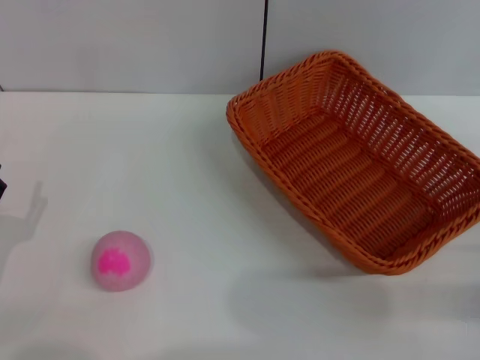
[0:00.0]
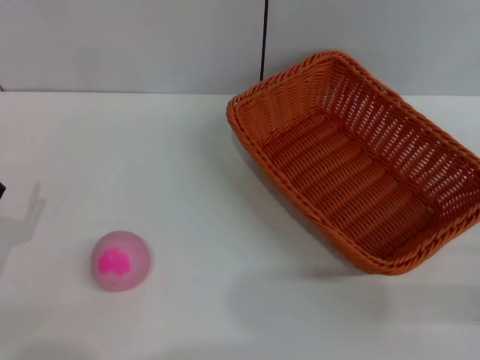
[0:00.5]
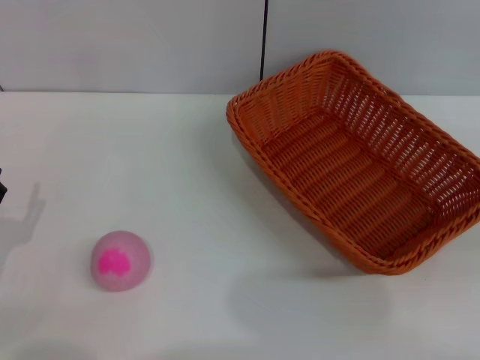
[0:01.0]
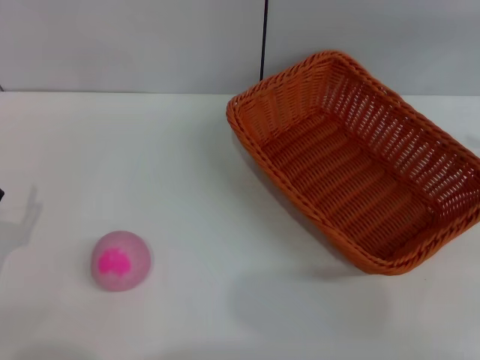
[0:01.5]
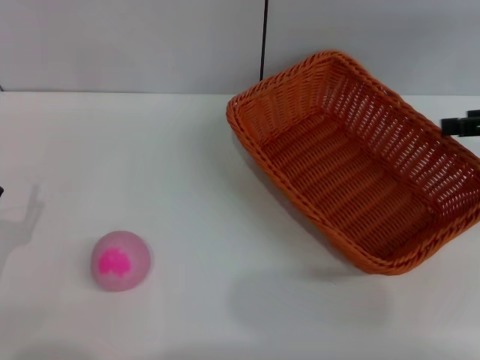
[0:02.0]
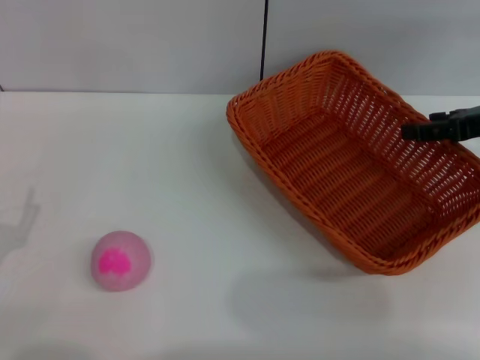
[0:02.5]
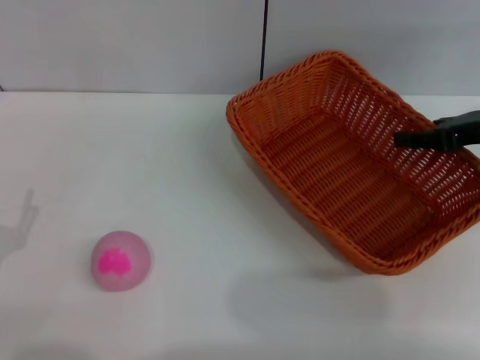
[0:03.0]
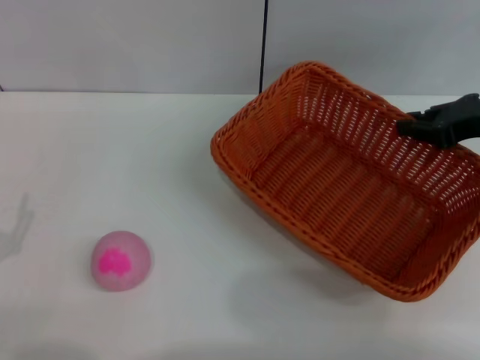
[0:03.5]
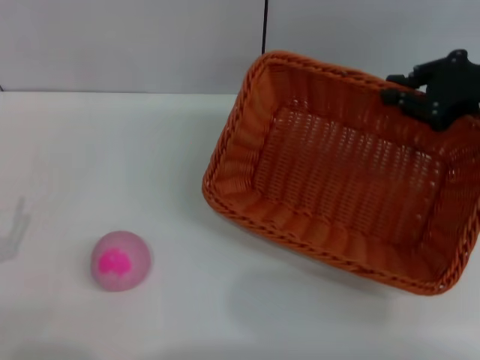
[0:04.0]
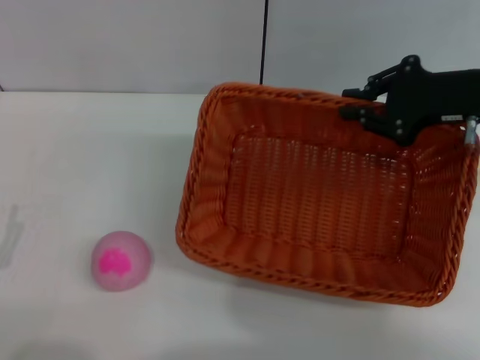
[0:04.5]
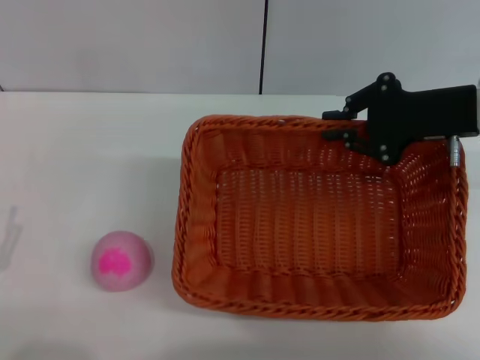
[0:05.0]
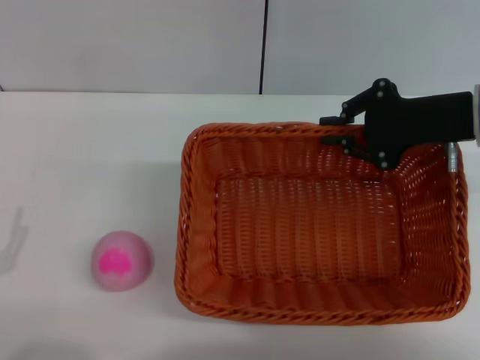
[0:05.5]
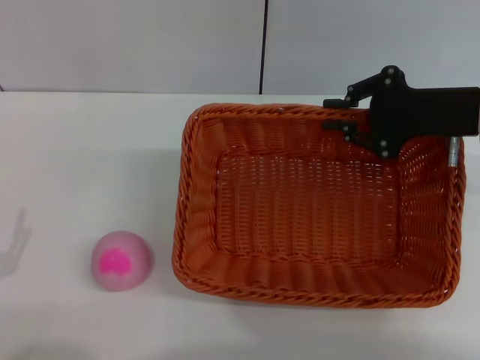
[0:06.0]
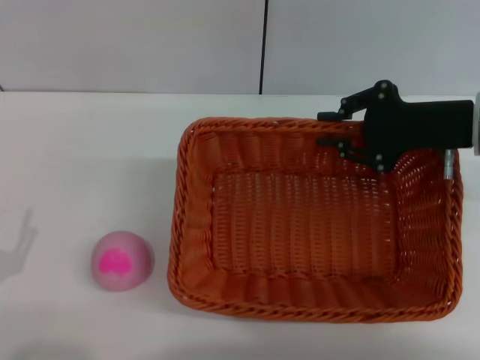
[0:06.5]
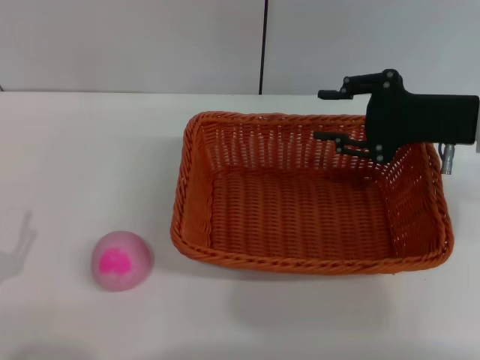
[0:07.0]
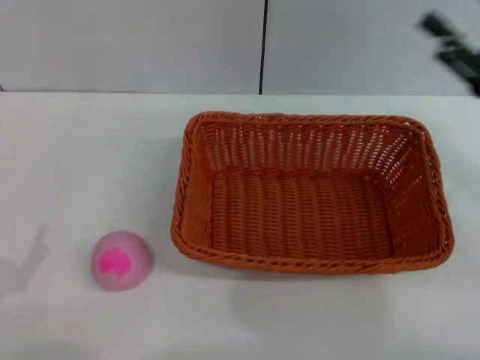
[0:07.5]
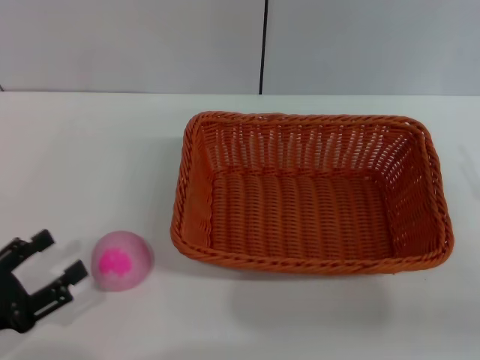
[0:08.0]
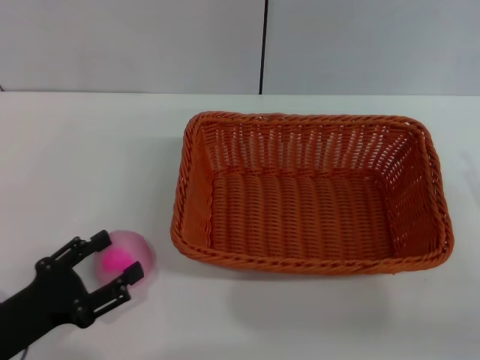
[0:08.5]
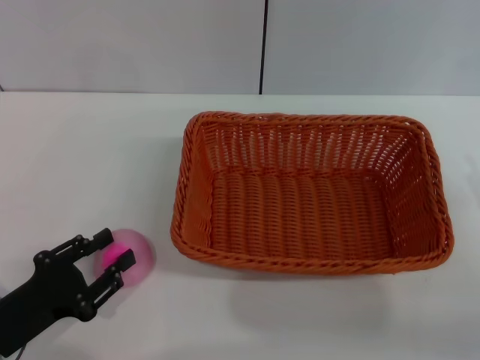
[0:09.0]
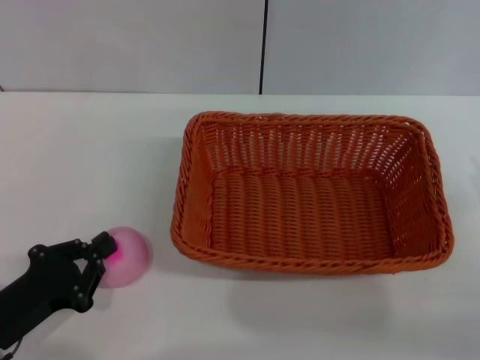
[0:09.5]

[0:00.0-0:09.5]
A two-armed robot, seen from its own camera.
Step, 0:00.0 to 0:04.0: Pick up the light basket with the right gripper.
Step, 0:04.5 to 0:07.0: Place the light basket in the center of view with the right gripper.
0:00.0 to 0:02.0: The right gripper travels upward and forward by some 20 cm.
0:02.0 to 0:04.0: The right gripper shifts roughly 5 cm to the left, and closes.
0:04.0 to 0:05.5: The right gripper moves about 5 cm.
0:05.5 to 0:07.5: The right gripper travels backward and to the right by approximately 10 cm, and opens.
0:07.5 to 0:09.5: The right gripper moves backward and downward, about 10 cm. The left gripper shifts by about 5 cm, and closes up.

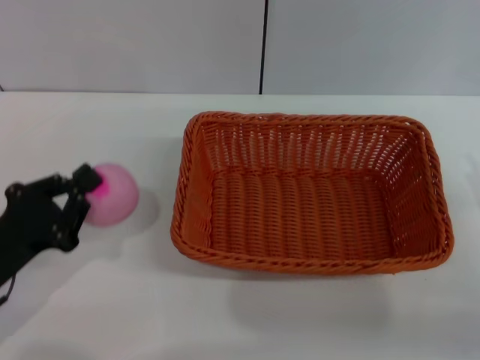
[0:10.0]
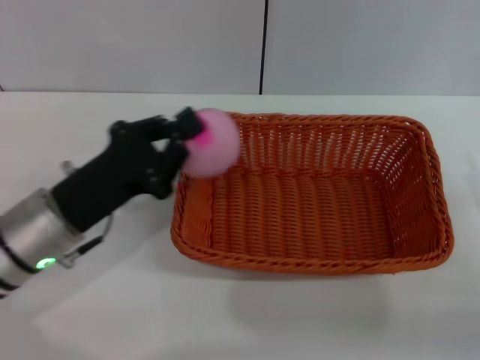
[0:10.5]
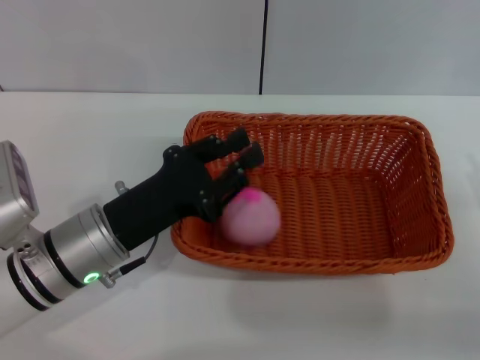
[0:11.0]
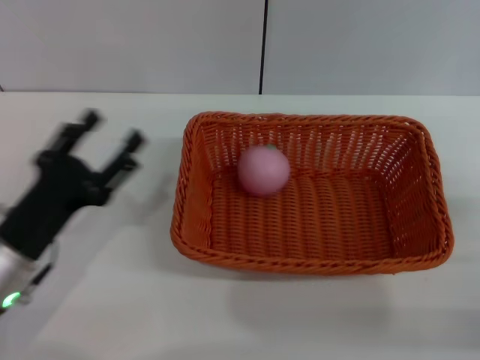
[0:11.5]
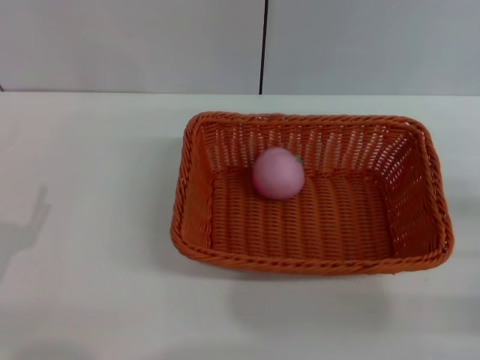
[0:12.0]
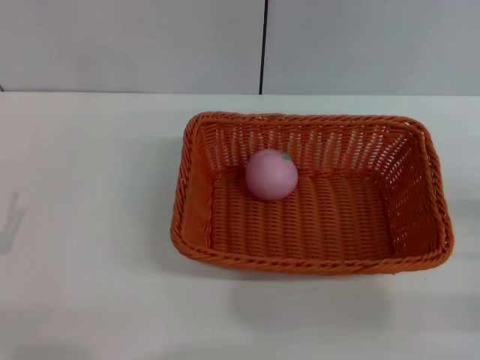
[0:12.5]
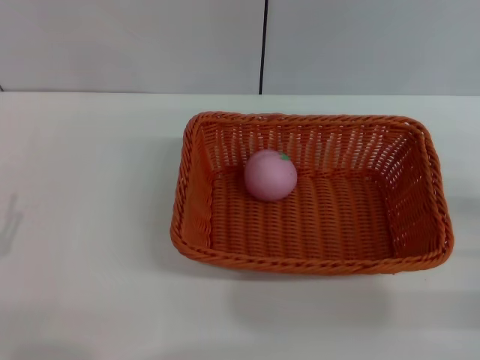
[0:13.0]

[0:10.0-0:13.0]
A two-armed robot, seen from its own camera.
Step, 0:10.5 to 0:11.0: Place the peach into the basket with the left gripper.
0:10.0 to 0:11.5: The left gripper opens its fingers.
0:11.5 to 0:13.0: The left gripper shifts about 10 cm to the left and backward.

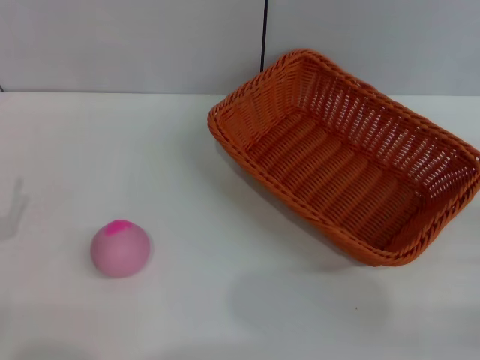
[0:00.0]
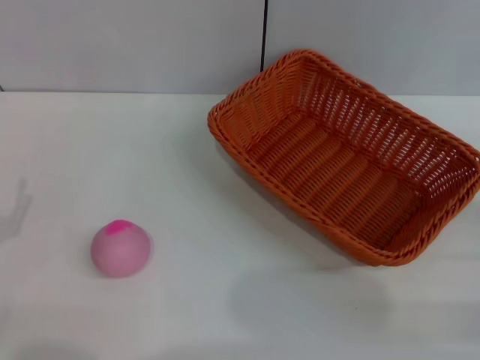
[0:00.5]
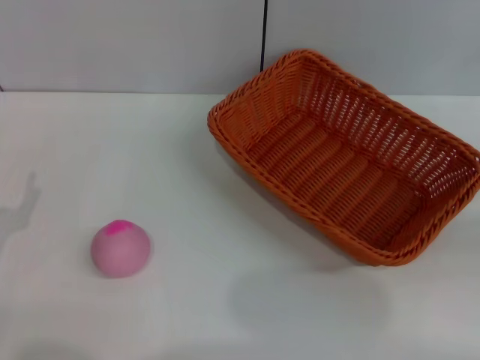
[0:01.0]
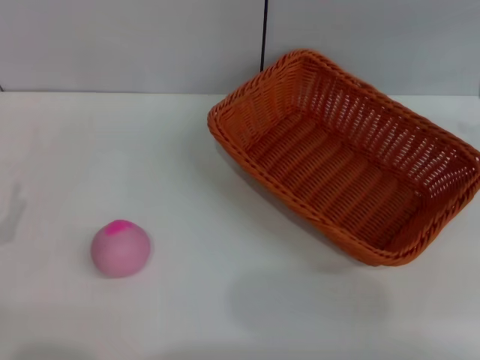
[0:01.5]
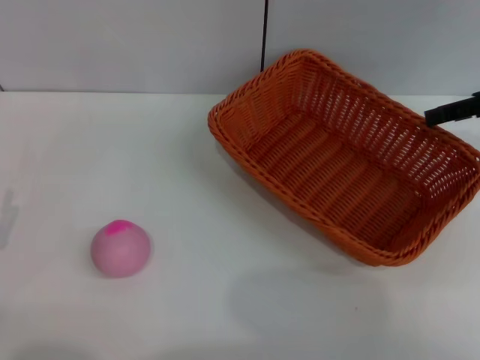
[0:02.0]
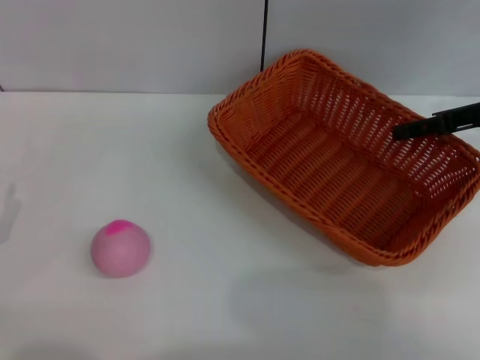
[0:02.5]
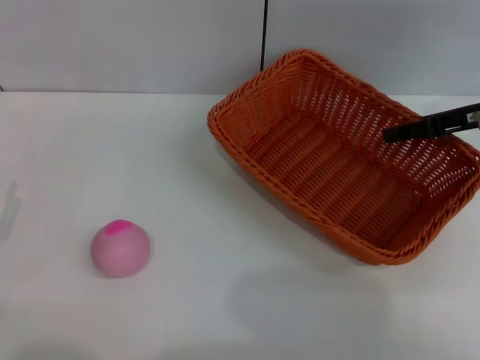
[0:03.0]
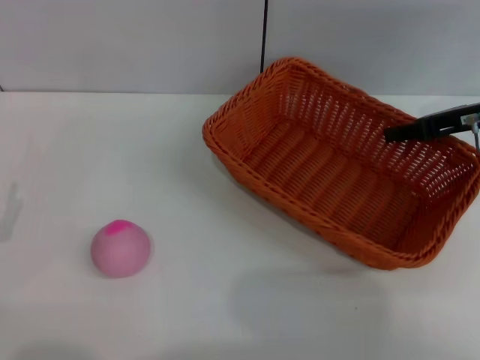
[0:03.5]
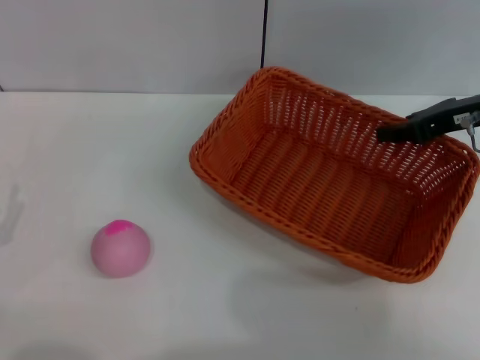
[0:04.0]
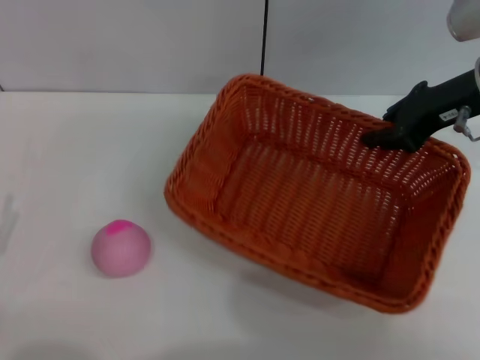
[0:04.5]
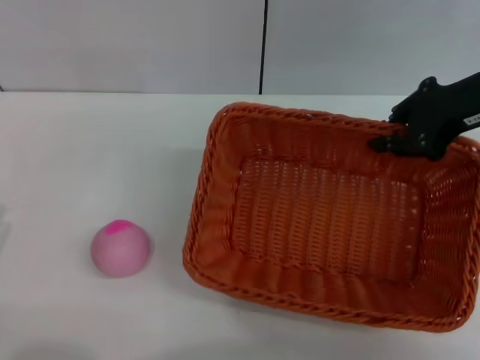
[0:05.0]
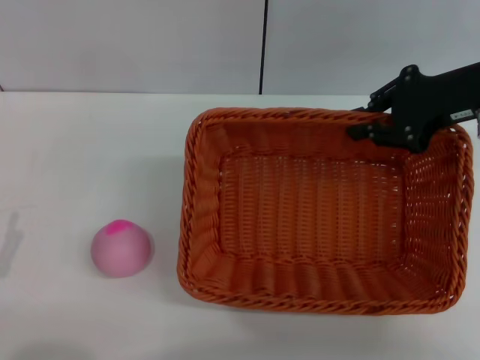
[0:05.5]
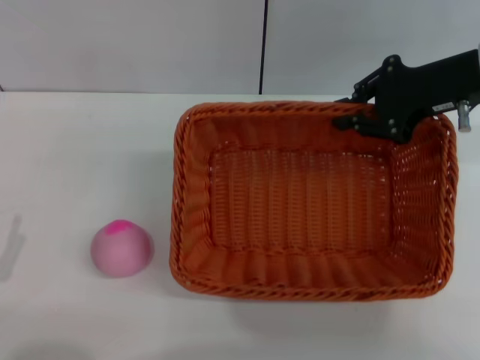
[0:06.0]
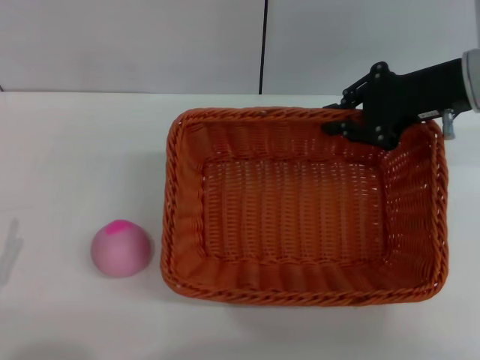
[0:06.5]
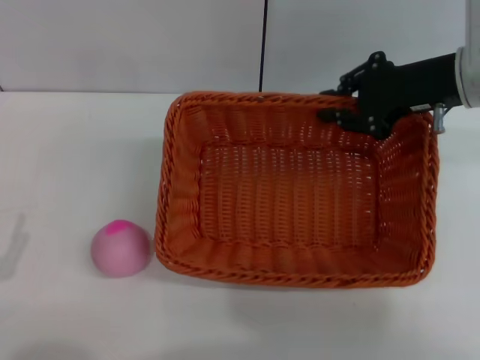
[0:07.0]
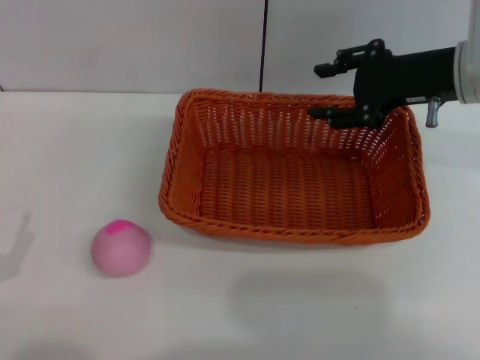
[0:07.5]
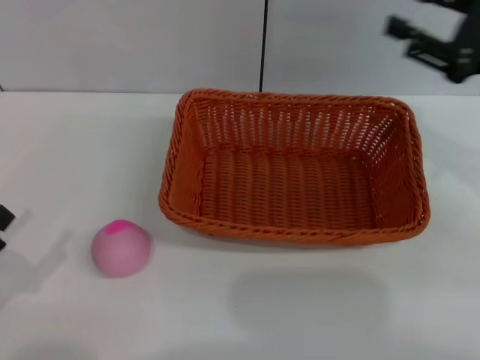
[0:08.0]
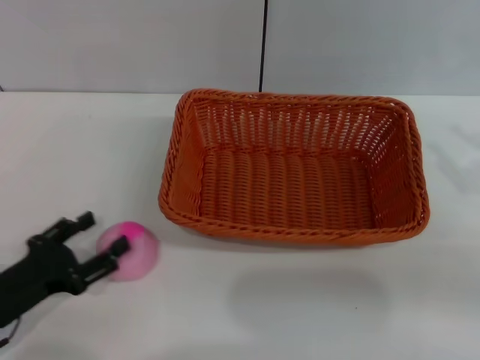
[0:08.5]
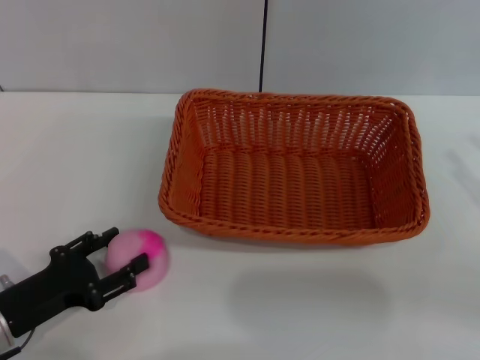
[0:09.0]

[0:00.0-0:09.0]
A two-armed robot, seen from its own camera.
Step, 0:00.0 to 0:04.5: Pick up the light basket with the right gripper.
Step, 0:05.0 to 0:07.5: Place the light basket in the center of view with the right gripper.
0:00.0 to 0:02.0: The right gripper shifts approximately 25 cm forward and upward, and opens.
0:02.0 to 0:04.5: The right gripper goes approximately 10 cm to the left, and closes up.
0:07.0 to 0:09.0: The right gripper is displaced backward, to the right and downward by approximately 20 cm, and opens up; the left gripper shifts about 5 cm forward.

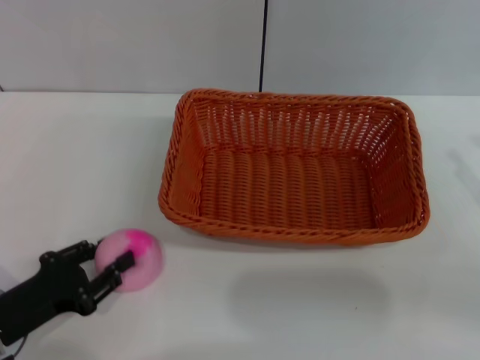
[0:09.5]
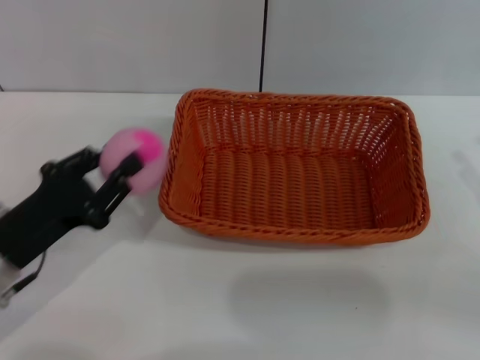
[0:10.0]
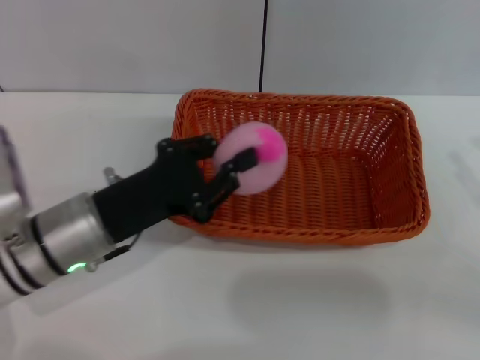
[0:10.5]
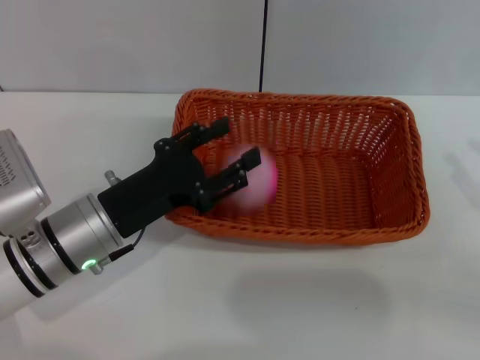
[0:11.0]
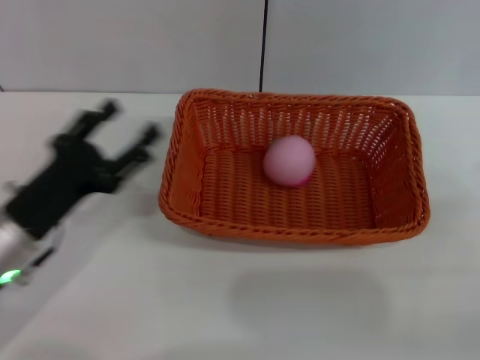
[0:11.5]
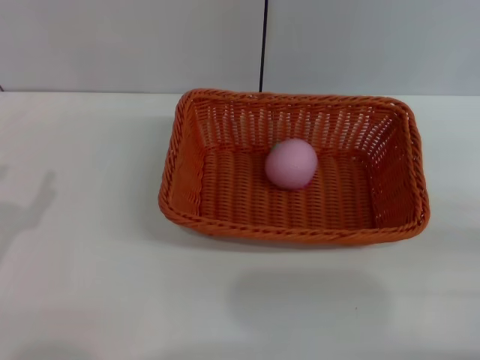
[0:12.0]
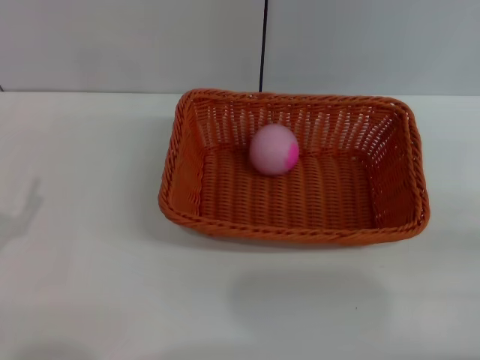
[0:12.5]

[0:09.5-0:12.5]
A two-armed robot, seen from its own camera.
Step, 0:10.5 to 0:11.5: Place the peach into the basket with the left gripper.
0:09.5 to 0:11.0: The left gripper is displaced to the right, forward and upward by roughly 15 cm, and closes, then opens again.
0:11.0 to 0:12.5: The left gripper moves to the left and backward, roughly 20 cm, and opens. The right gripper shifts about 5 cm backward.
